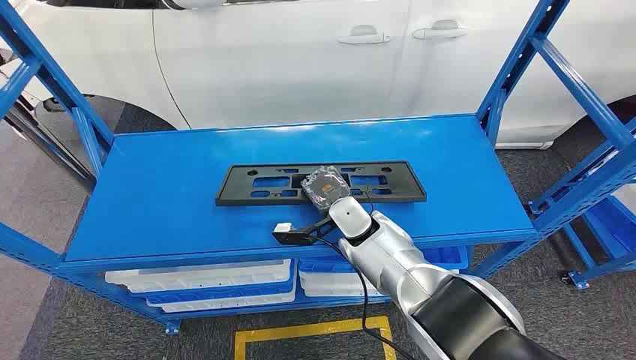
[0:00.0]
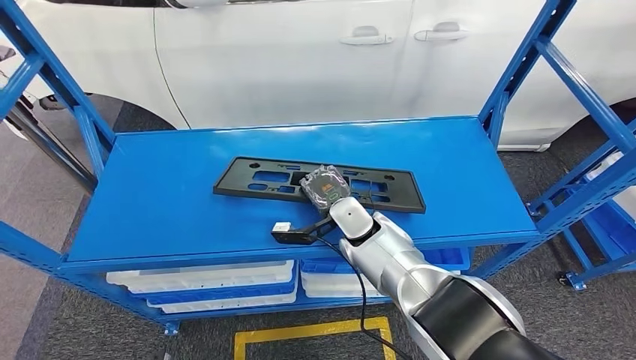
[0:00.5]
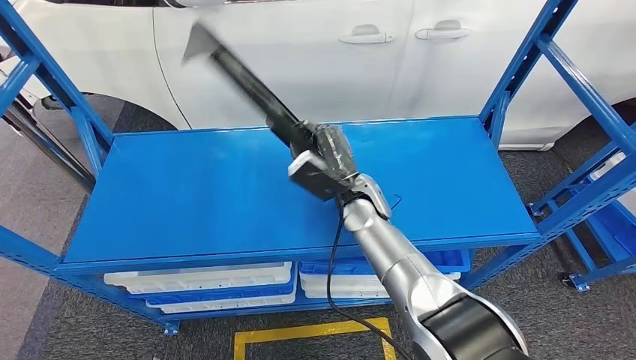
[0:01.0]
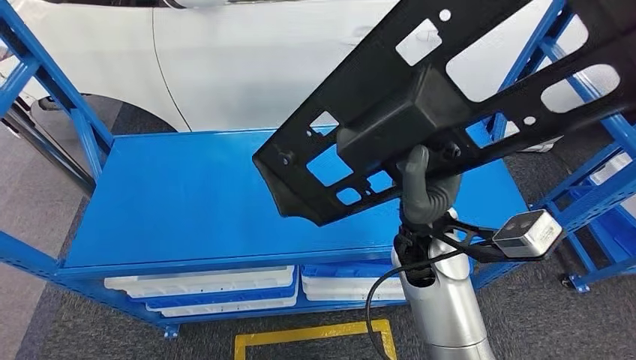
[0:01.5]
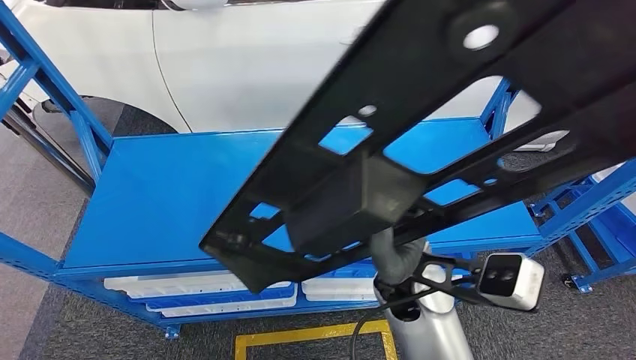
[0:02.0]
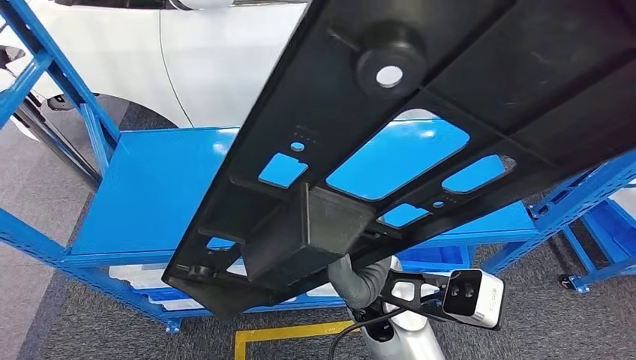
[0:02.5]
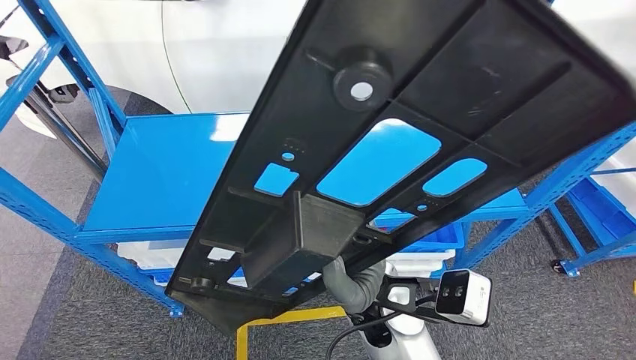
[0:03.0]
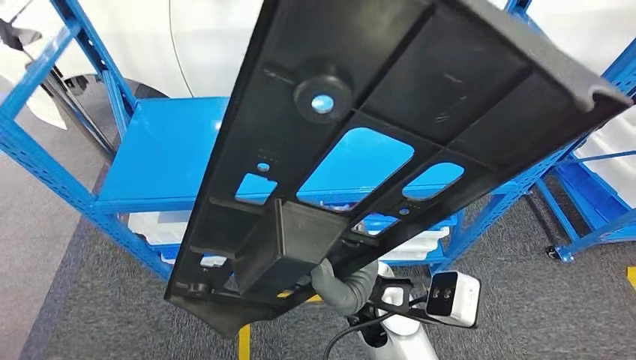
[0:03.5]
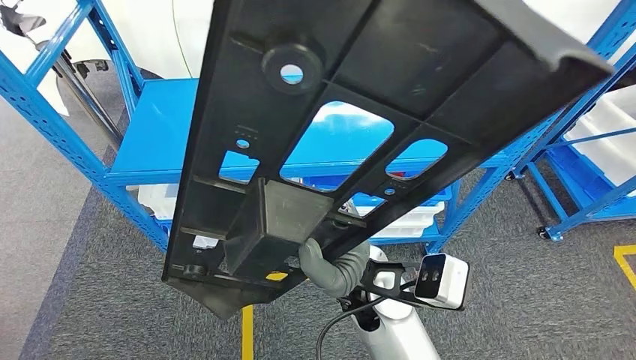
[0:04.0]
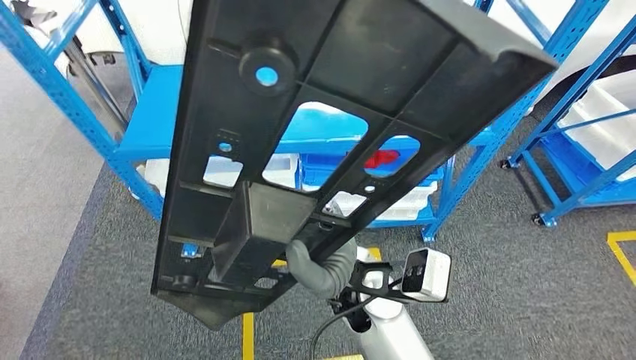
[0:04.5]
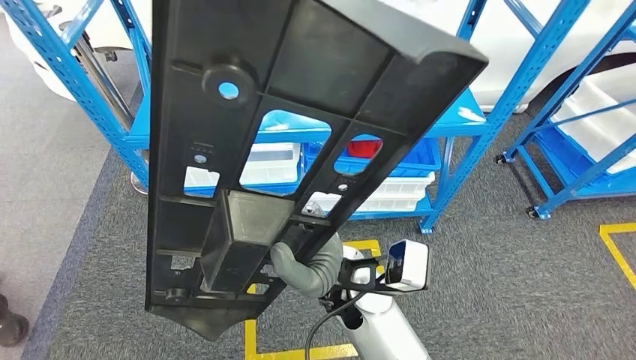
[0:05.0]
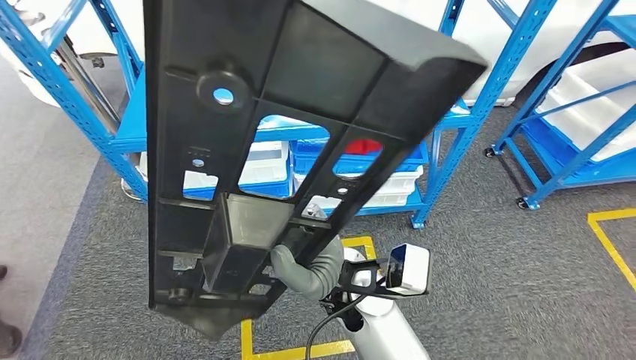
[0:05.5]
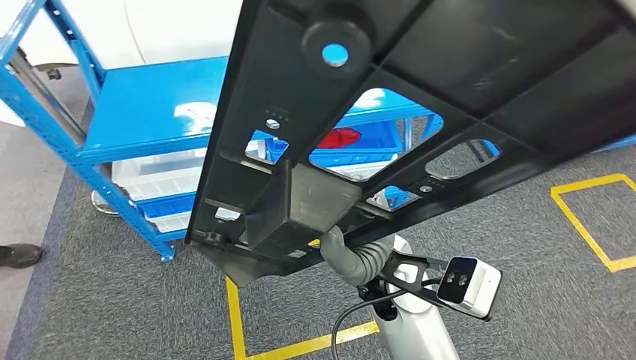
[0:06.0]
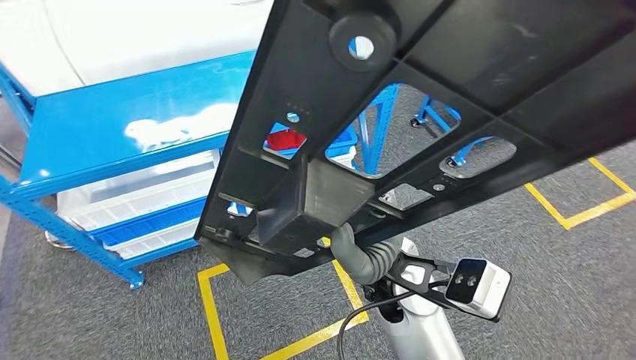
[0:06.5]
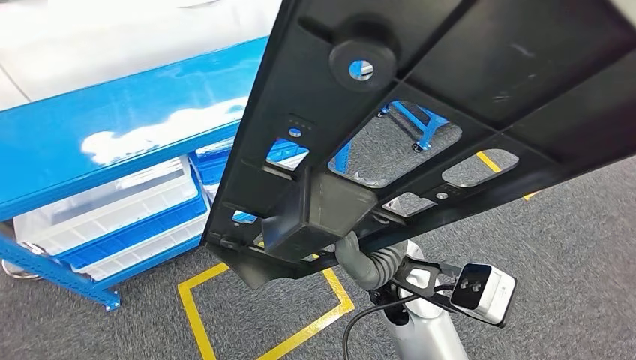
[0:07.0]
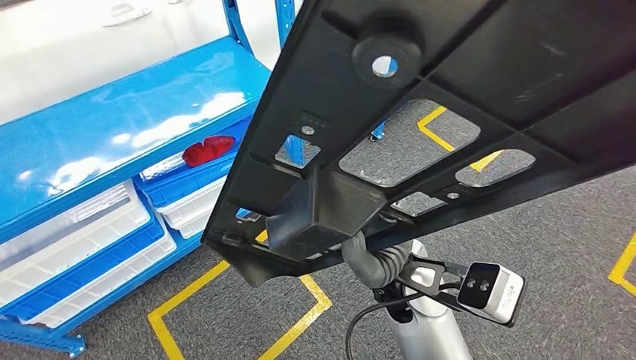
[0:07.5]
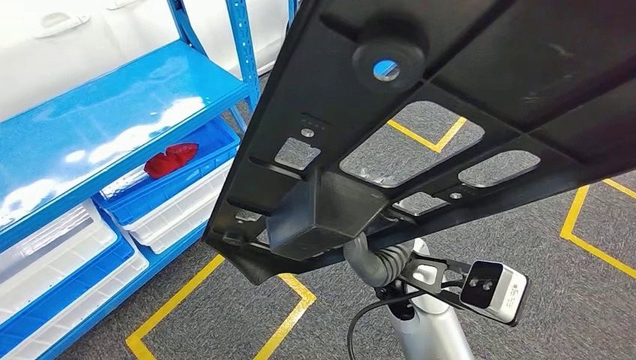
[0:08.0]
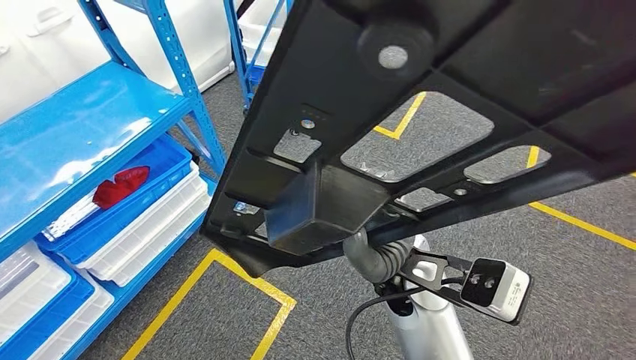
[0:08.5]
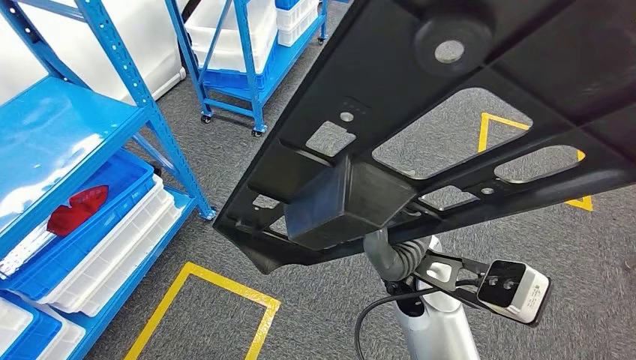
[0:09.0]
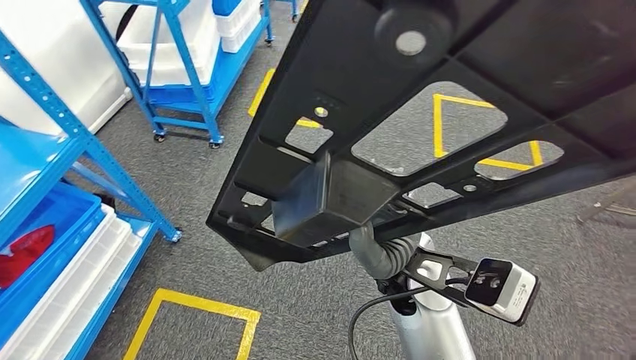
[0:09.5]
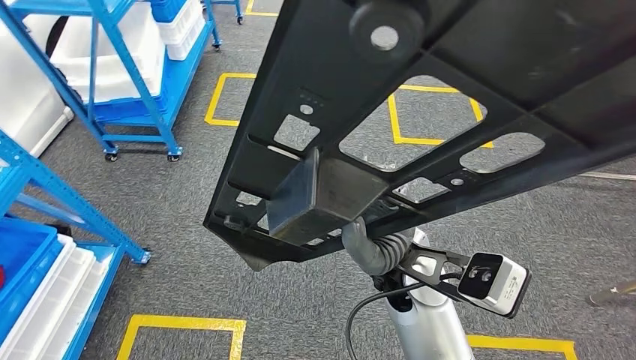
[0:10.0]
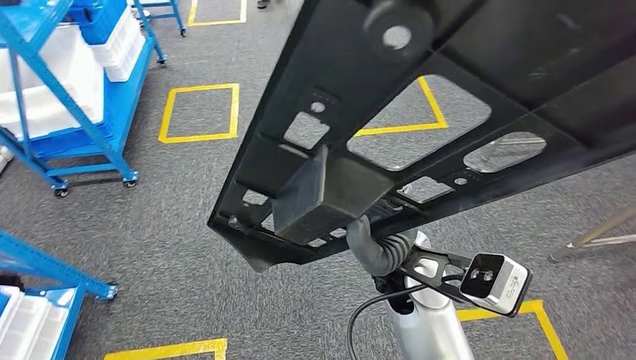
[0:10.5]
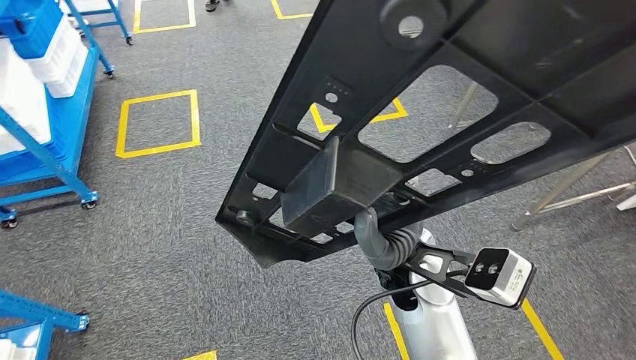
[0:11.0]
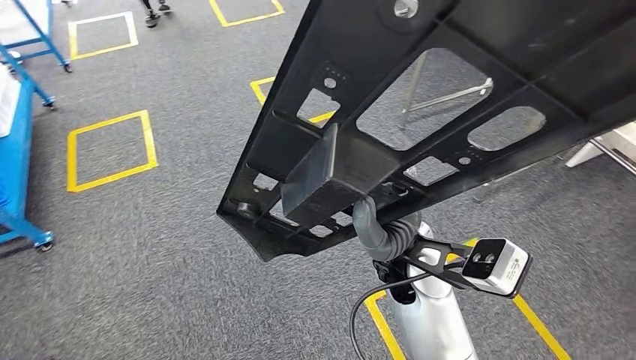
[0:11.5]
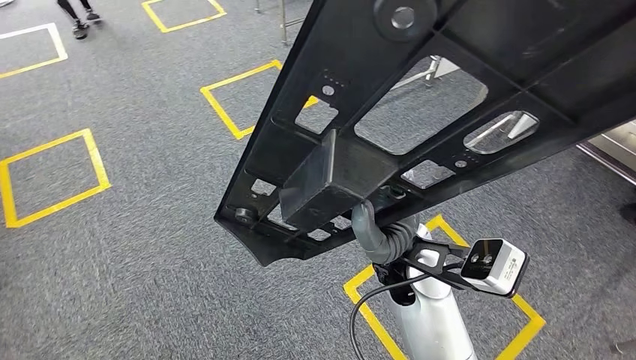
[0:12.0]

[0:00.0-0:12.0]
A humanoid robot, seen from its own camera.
Step, 0:00.0 to 0:04.0: Pick up the large parts from the shelf.

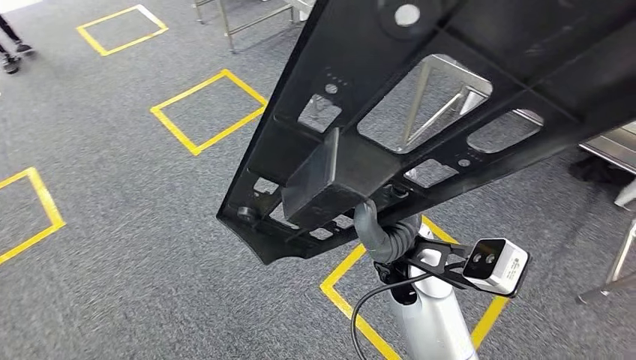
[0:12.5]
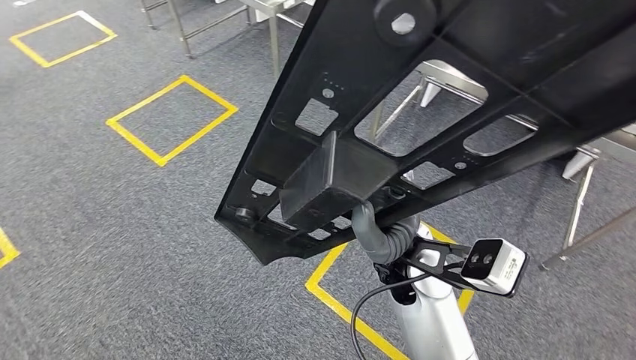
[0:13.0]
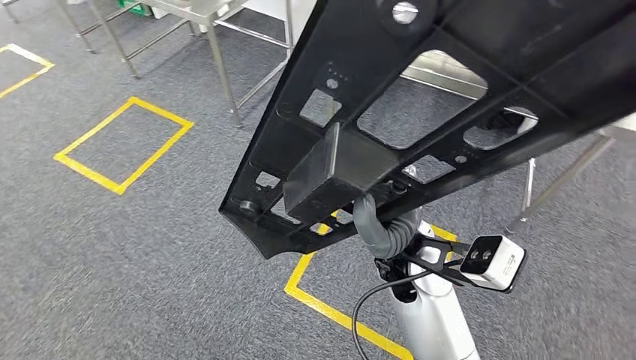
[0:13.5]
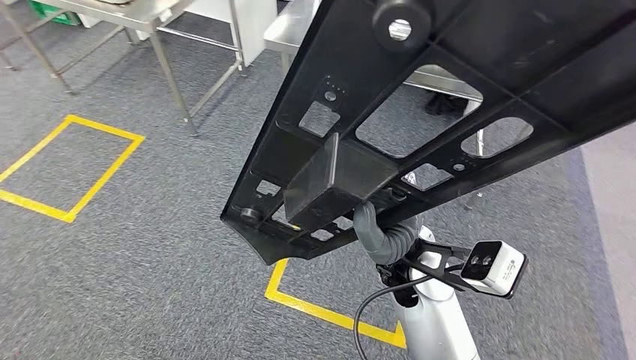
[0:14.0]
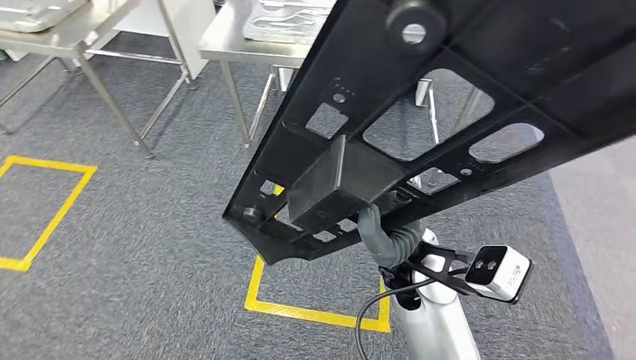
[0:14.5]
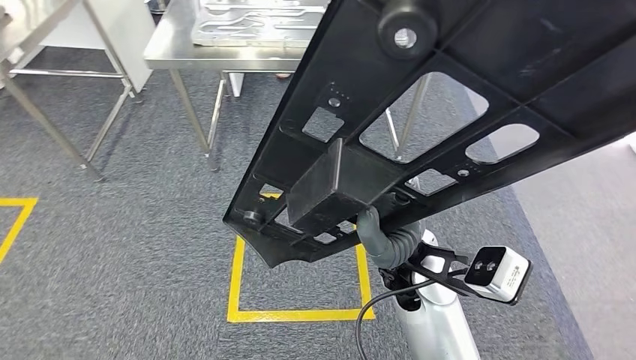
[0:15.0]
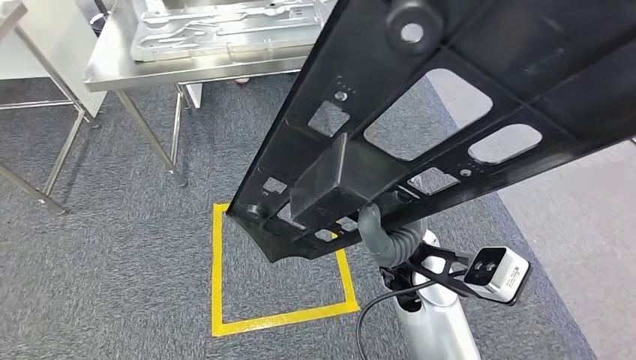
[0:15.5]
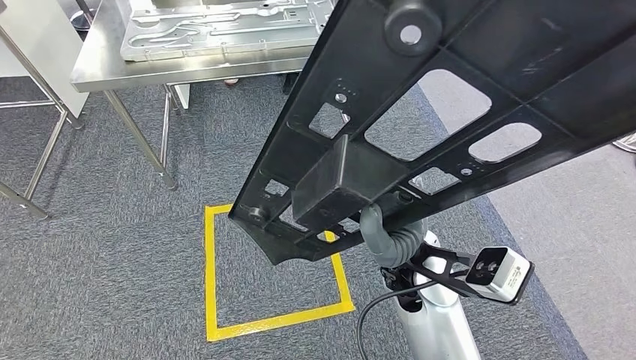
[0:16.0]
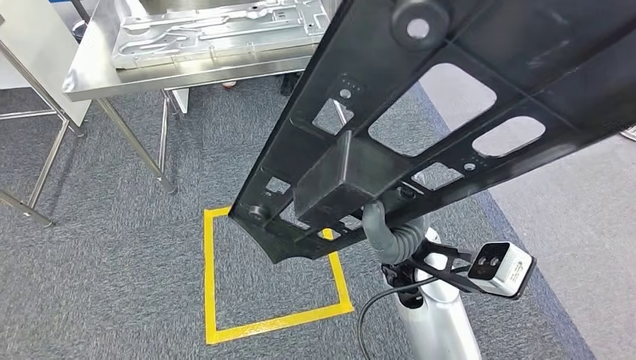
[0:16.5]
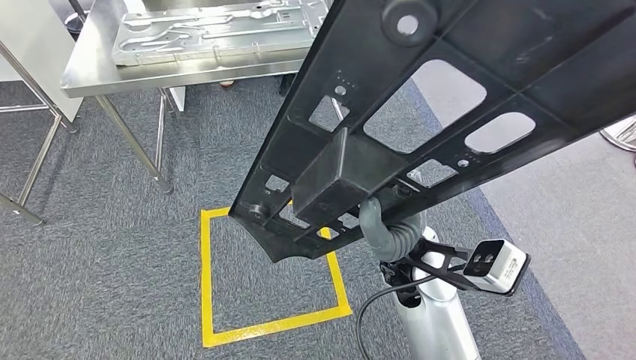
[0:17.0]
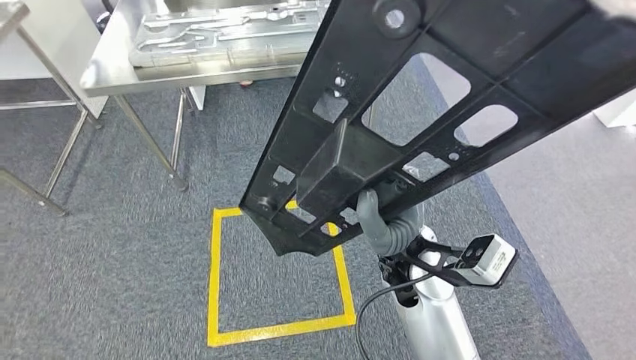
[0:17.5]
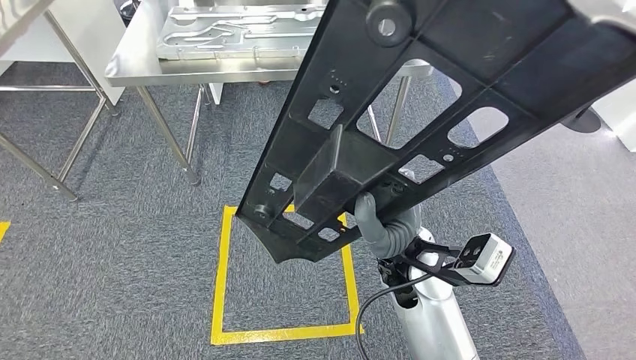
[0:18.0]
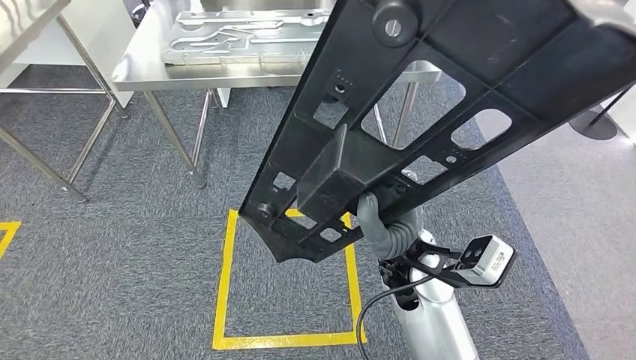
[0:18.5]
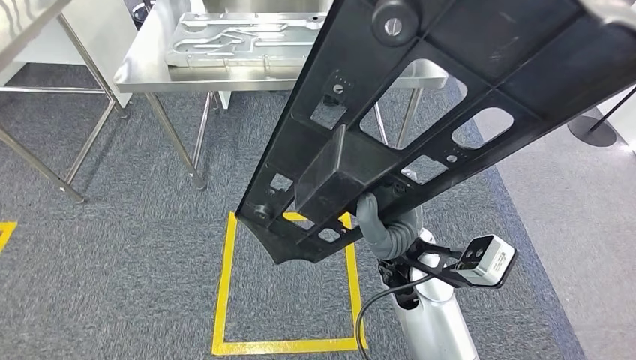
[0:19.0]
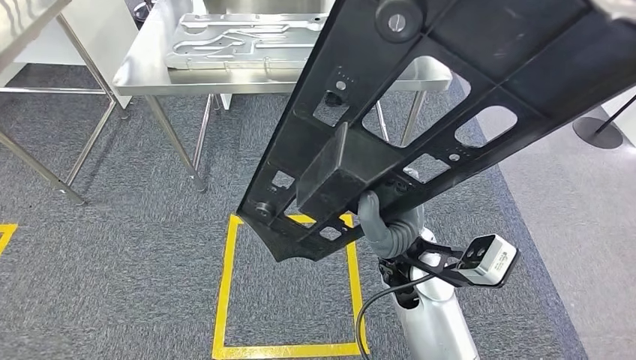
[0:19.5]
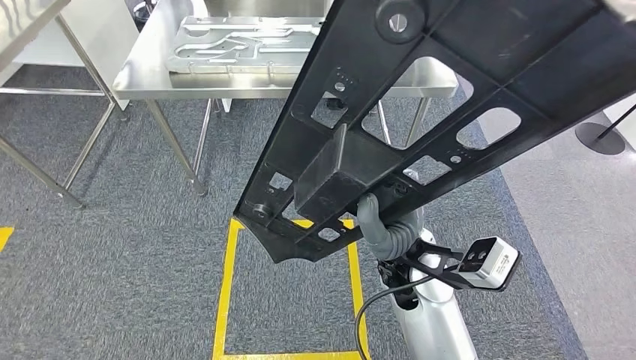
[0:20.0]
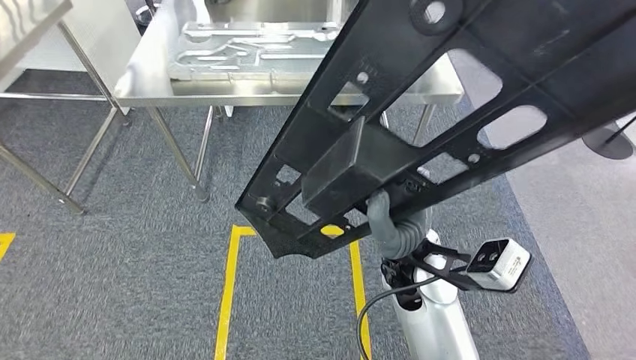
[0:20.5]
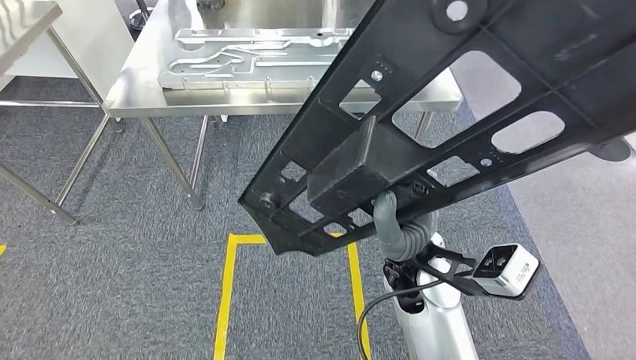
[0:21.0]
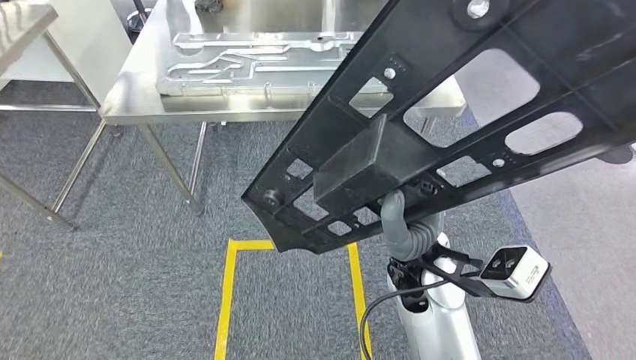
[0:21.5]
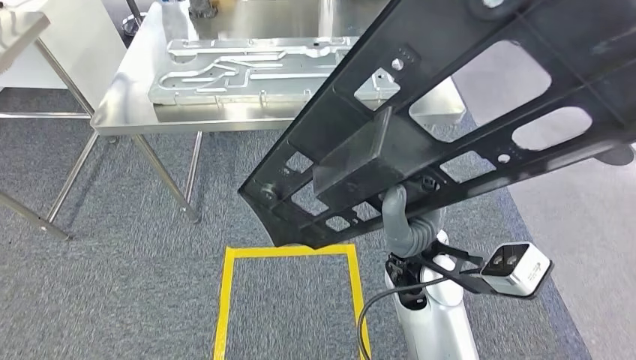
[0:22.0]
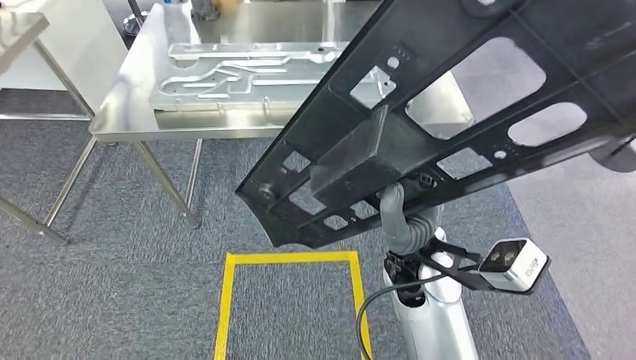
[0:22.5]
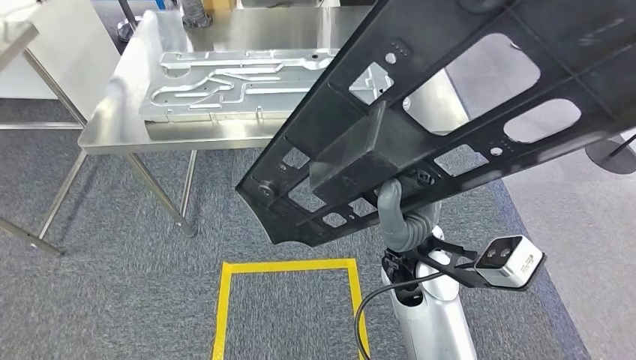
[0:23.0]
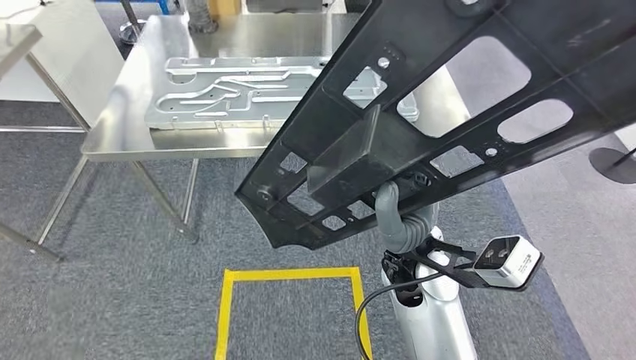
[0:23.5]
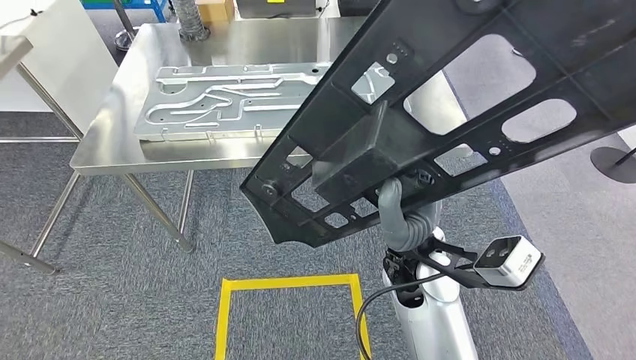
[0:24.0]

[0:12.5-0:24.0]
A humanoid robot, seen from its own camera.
Step, 0:12.5 to 0:24.0: Move the large parts to the workbench.
0:18.5 to 0:20.0: The two hands keep their place.
